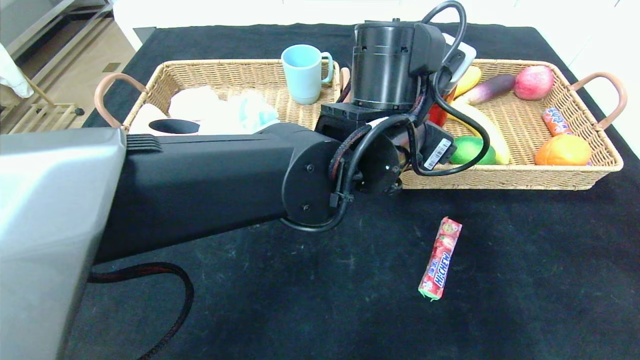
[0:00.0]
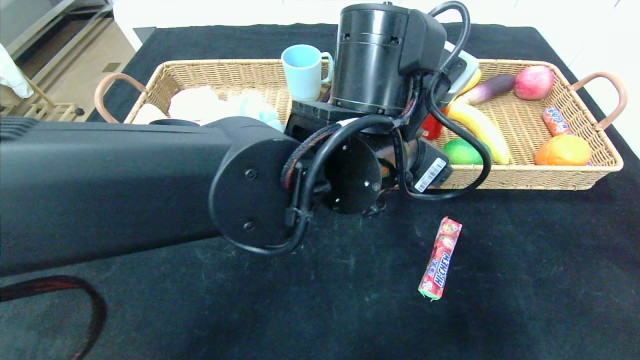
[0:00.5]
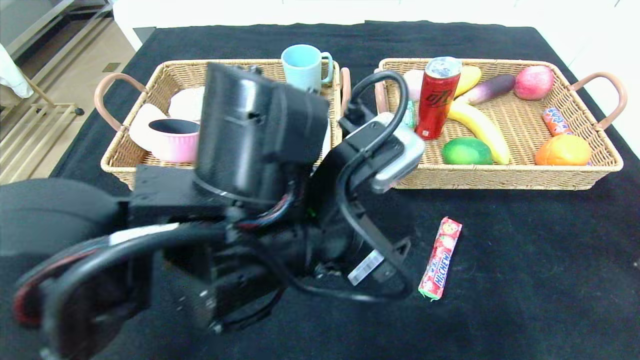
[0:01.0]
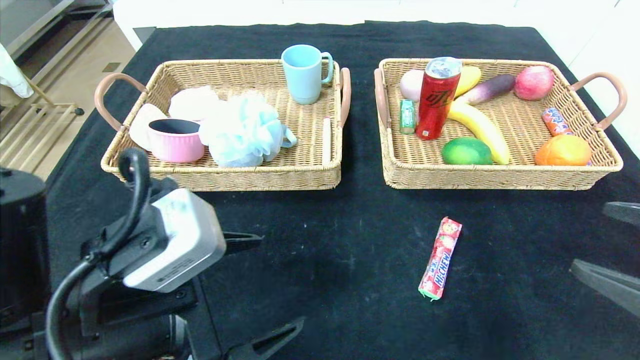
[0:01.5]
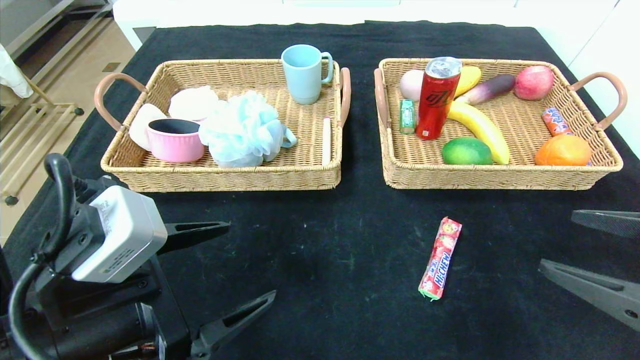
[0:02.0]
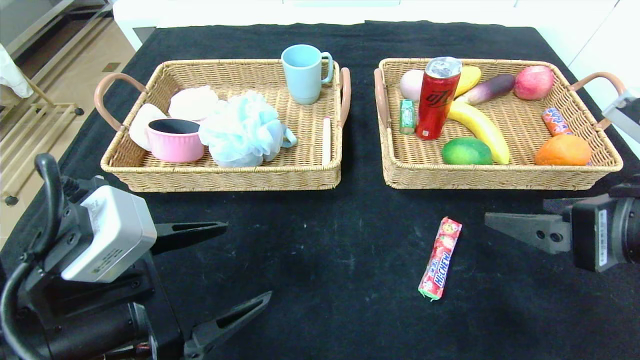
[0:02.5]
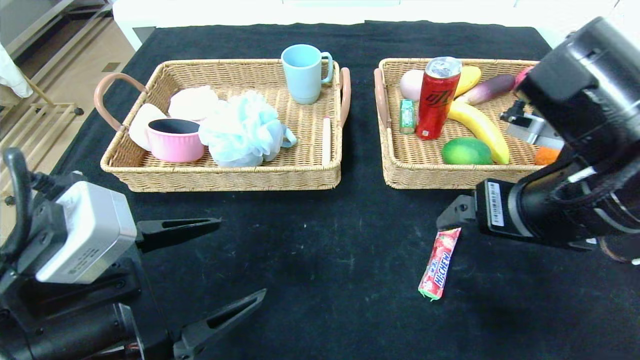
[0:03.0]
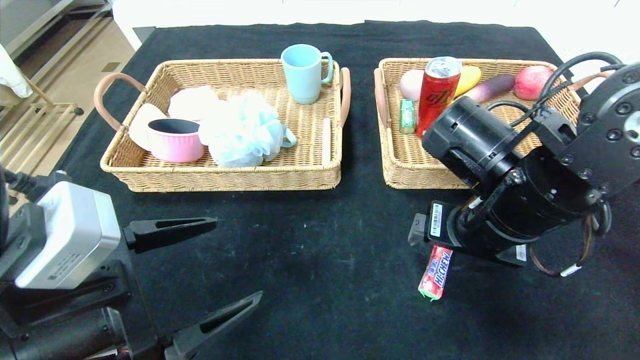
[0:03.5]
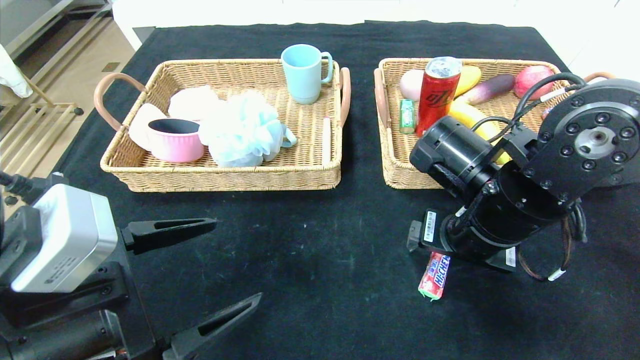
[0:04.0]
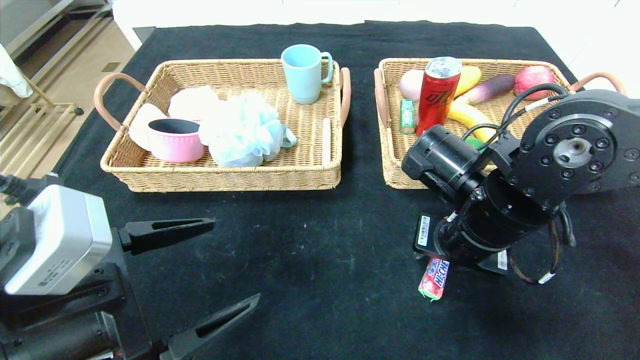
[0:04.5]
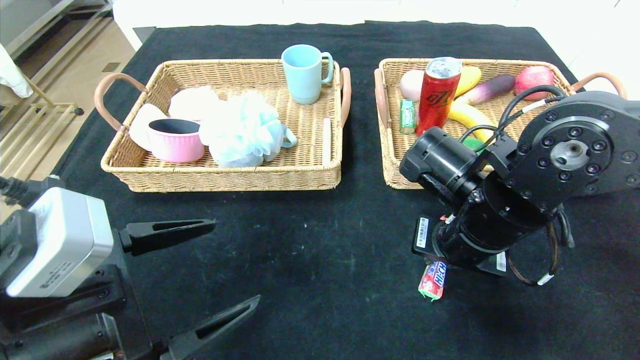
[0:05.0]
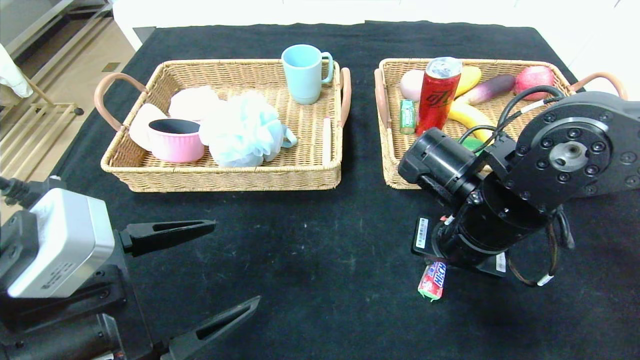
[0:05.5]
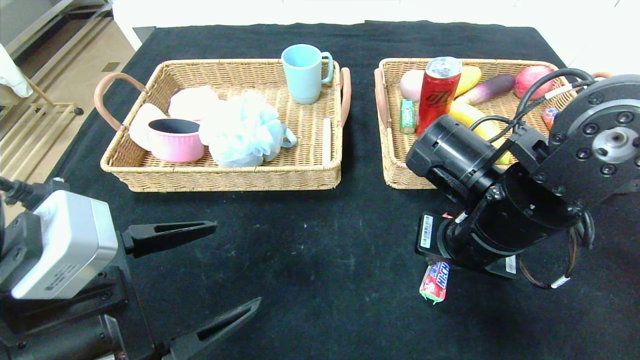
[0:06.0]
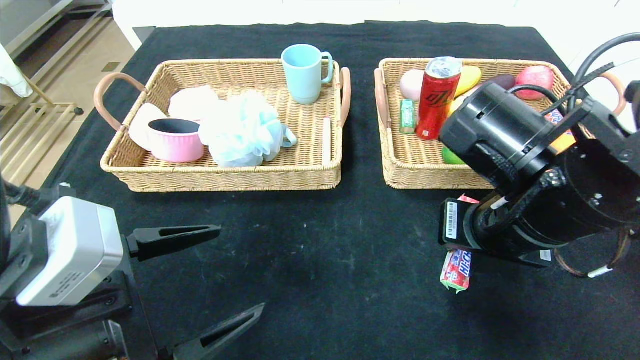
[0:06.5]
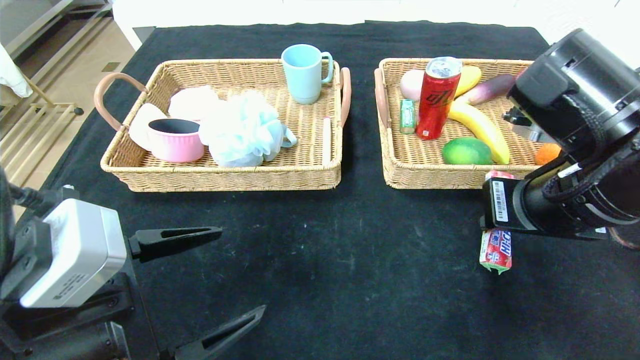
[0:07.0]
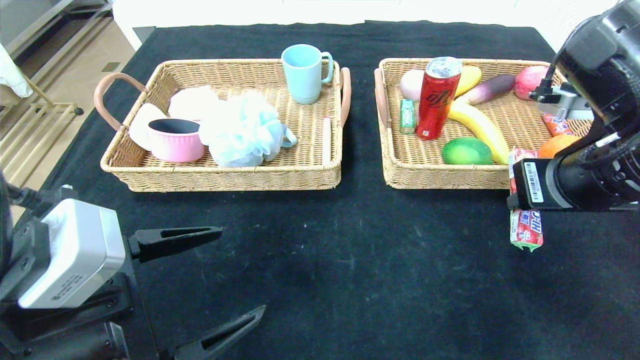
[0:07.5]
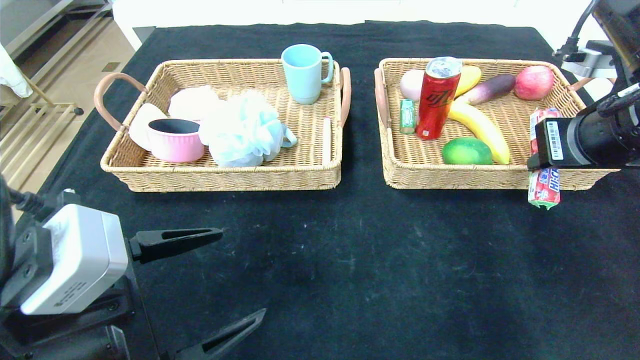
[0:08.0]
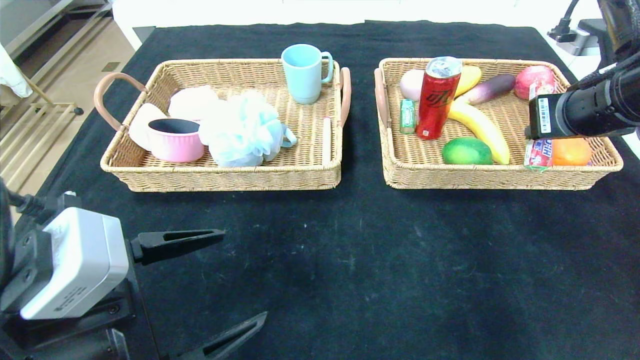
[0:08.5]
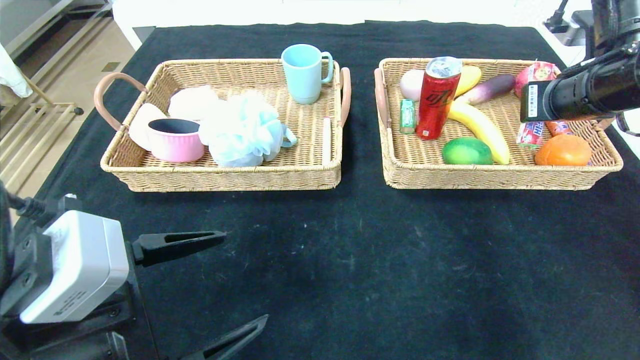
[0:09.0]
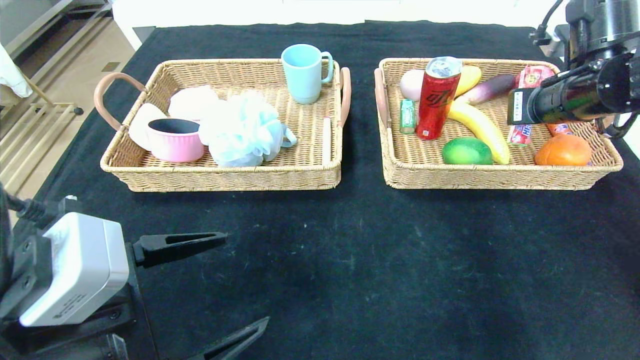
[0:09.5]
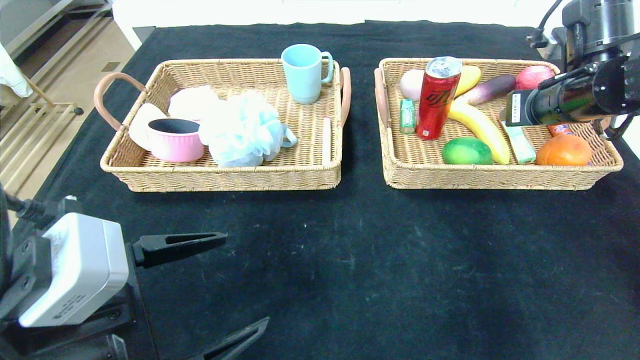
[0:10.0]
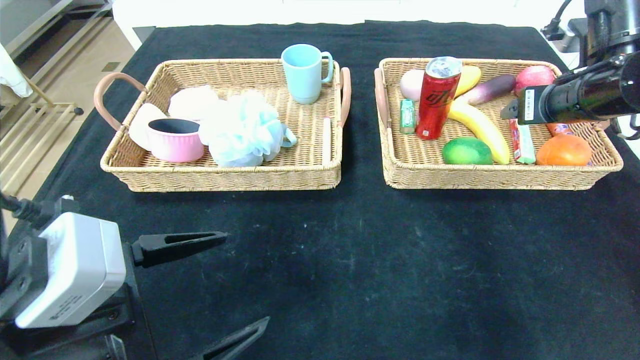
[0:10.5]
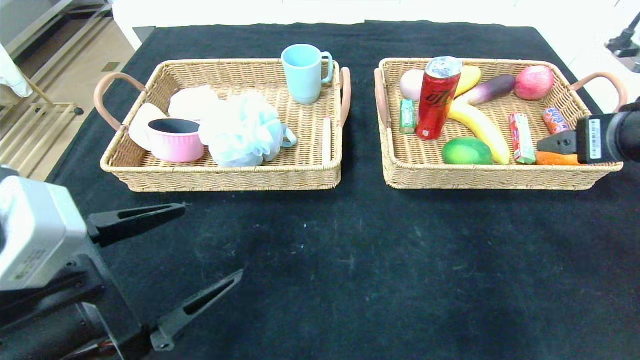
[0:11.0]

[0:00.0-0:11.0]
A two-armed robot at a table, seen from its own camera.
Step, 0:00.0 to 0:10.0: Grasp the fruit fudge and put it in the right basket.
0:00.0 to 0:02.0: The right gripper heads forward, covering about 5 cm. Meanwhile the left gripper moves to the left and backward, approximately 30 cm.
0:02.0 to 0:03.5: The right gripper heads to the left and forward, covering about 20 cm.
0:03.5 to 0:05.5: The right gripper closes up.
0:05.5 to 0:07.5: The right gripper goes some 10 cm upward and to the right.
0:07.5 to 0:09.0: The right gripper goes about 10 cm forward and to the right.
0:09.0 to 0:11.0: The right gripper moves backward, roughly 10 cm, and opens up.

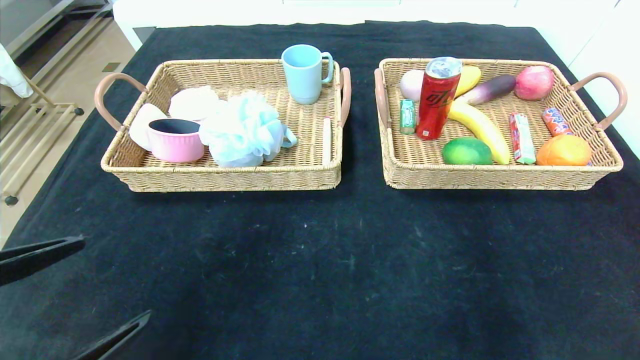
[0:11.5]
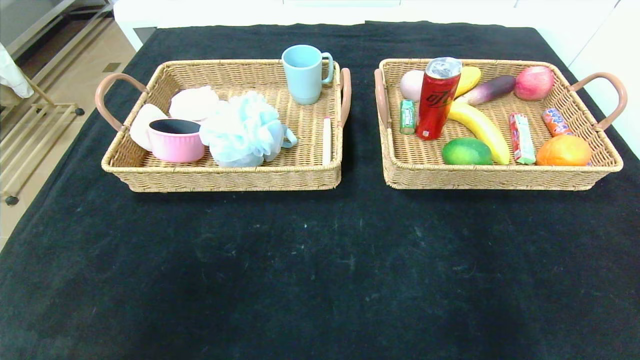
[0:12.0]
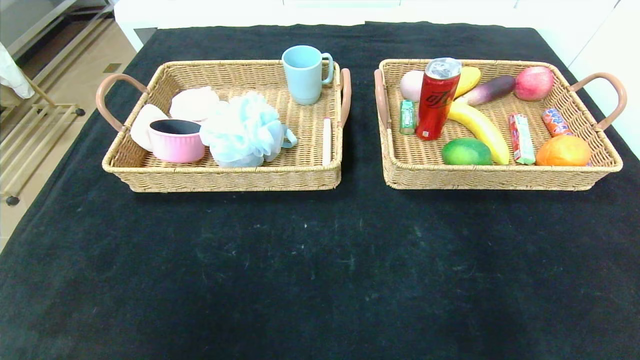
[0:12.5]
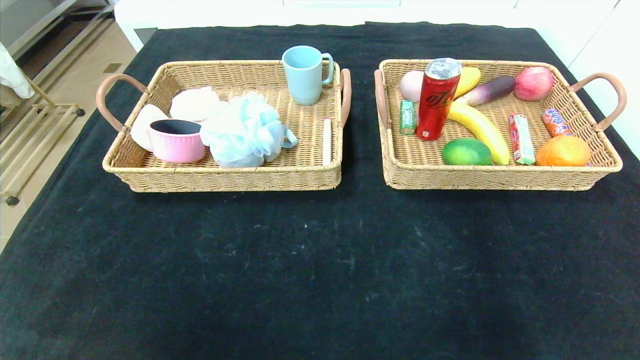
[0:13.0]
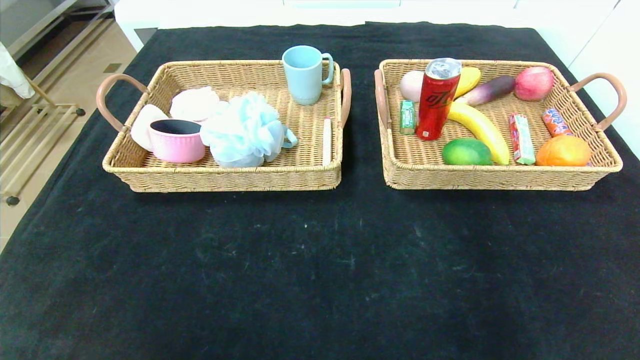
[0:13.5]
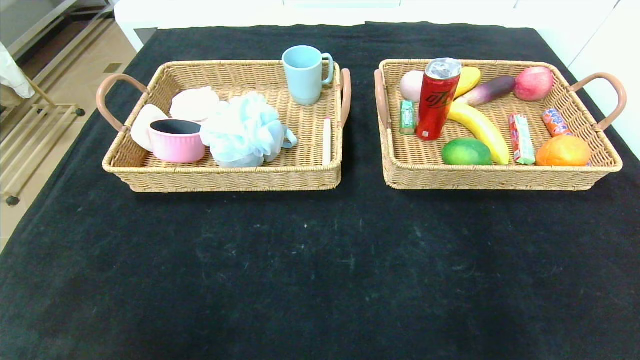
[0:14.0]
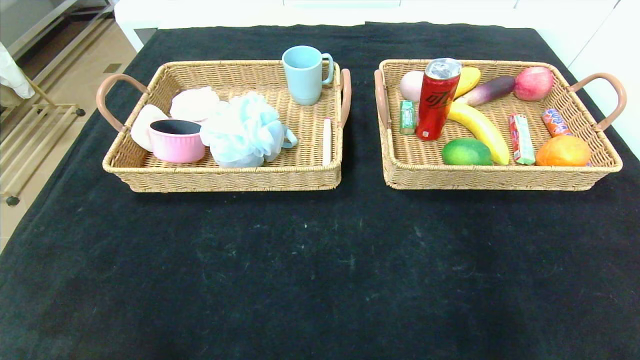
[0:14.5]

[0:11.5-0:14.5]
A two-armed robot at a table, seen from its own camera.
0:11.5 to 0:13.0: The grippers both shift backward by approximately 20 cm.
